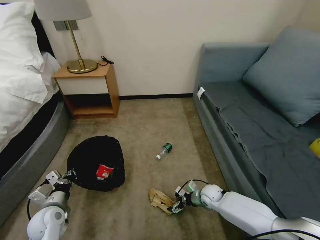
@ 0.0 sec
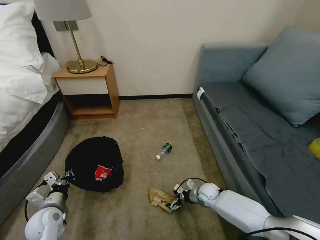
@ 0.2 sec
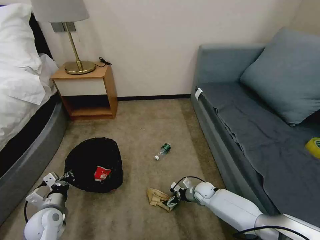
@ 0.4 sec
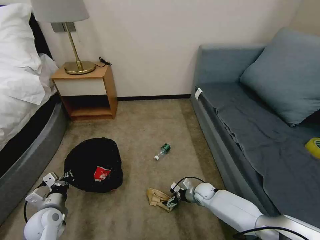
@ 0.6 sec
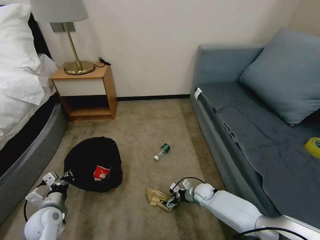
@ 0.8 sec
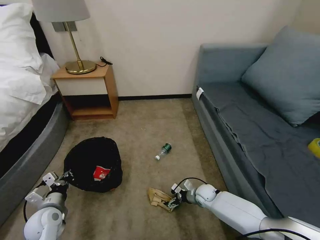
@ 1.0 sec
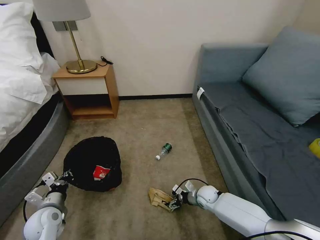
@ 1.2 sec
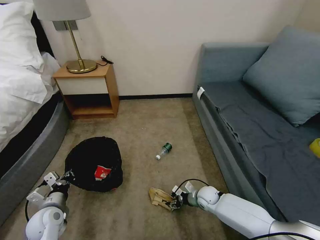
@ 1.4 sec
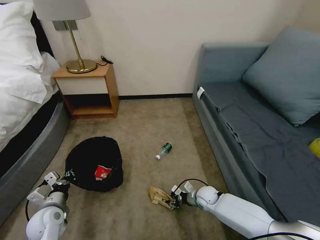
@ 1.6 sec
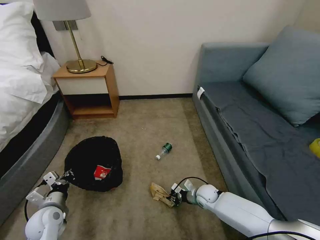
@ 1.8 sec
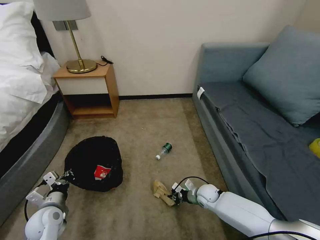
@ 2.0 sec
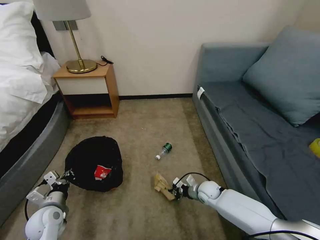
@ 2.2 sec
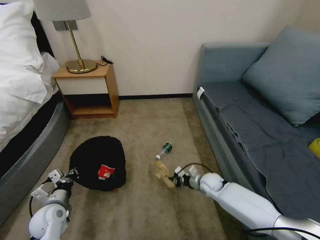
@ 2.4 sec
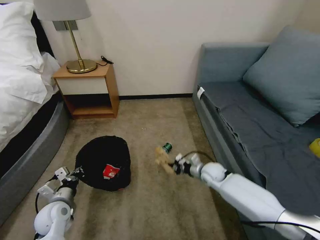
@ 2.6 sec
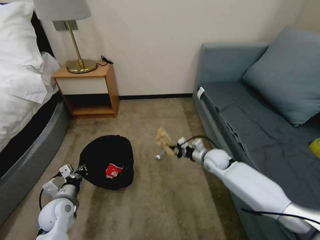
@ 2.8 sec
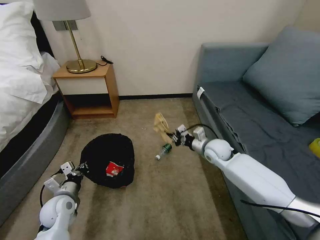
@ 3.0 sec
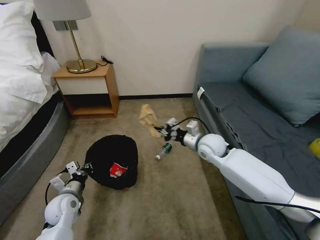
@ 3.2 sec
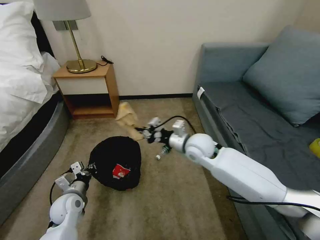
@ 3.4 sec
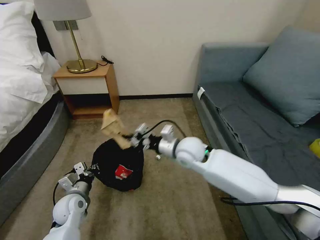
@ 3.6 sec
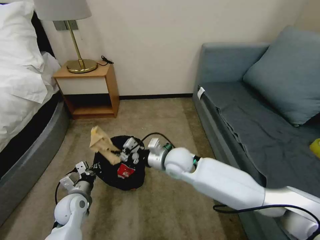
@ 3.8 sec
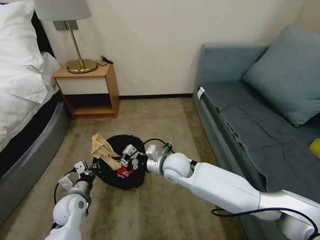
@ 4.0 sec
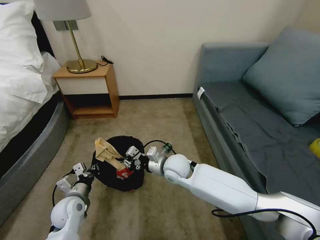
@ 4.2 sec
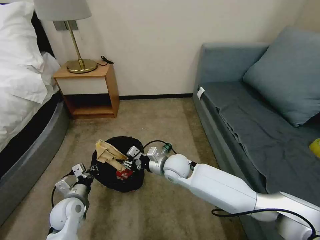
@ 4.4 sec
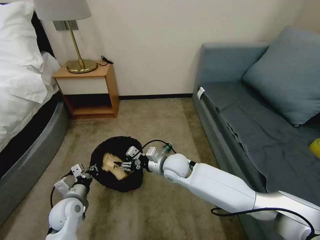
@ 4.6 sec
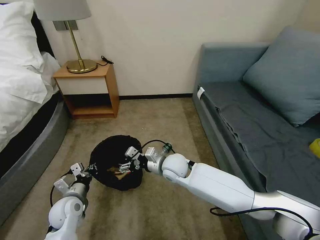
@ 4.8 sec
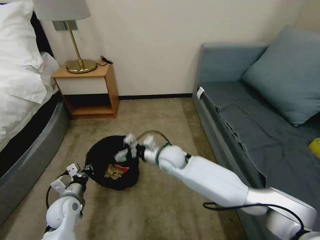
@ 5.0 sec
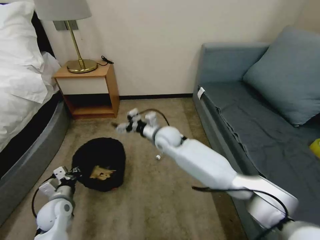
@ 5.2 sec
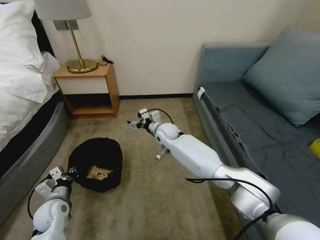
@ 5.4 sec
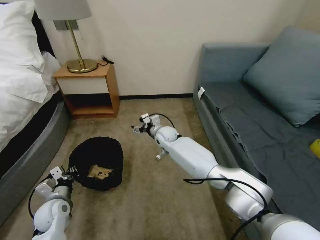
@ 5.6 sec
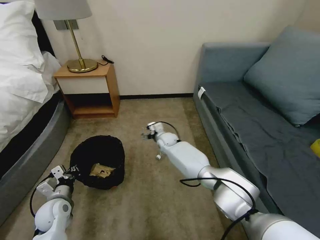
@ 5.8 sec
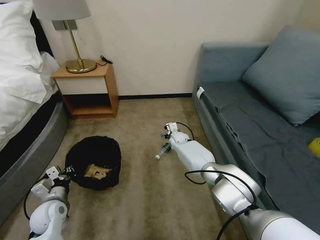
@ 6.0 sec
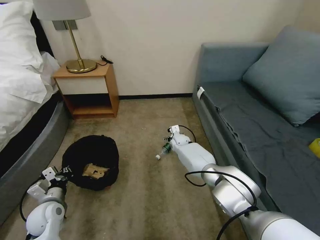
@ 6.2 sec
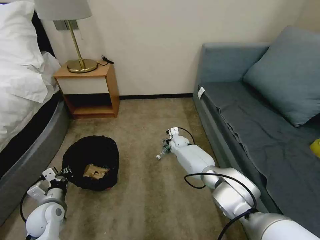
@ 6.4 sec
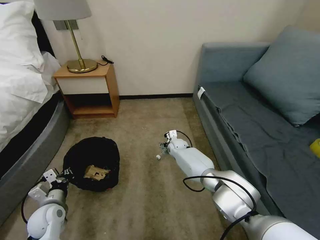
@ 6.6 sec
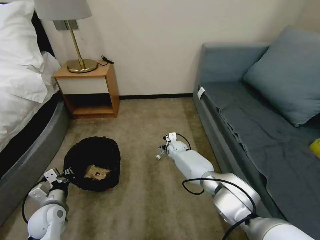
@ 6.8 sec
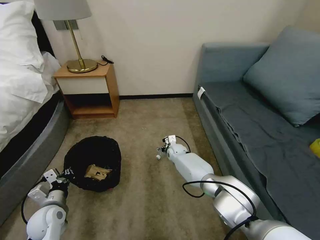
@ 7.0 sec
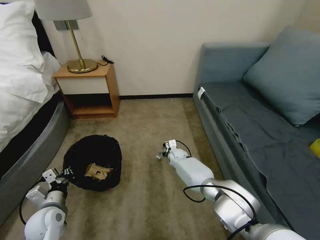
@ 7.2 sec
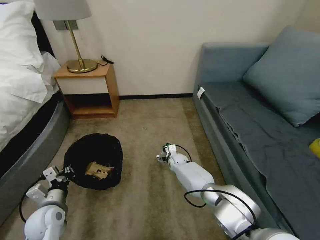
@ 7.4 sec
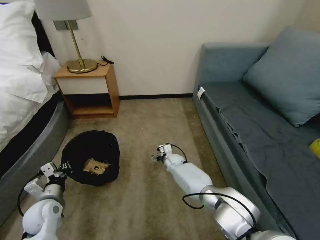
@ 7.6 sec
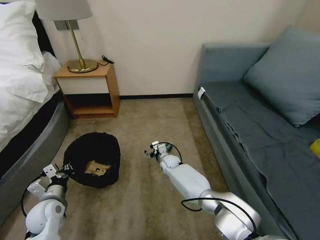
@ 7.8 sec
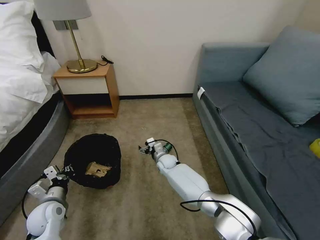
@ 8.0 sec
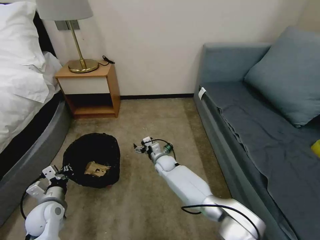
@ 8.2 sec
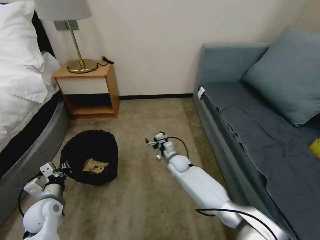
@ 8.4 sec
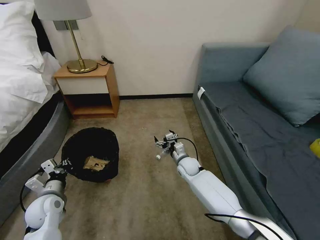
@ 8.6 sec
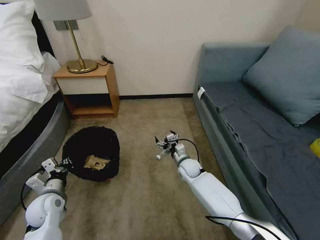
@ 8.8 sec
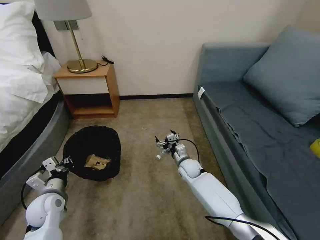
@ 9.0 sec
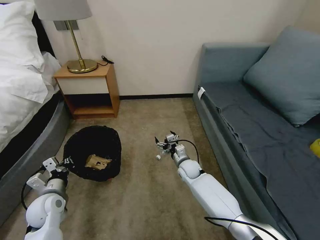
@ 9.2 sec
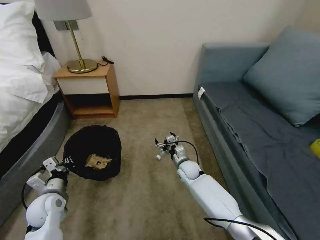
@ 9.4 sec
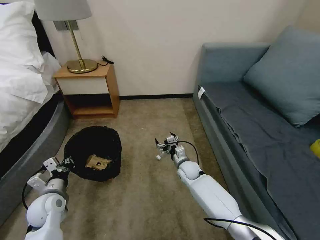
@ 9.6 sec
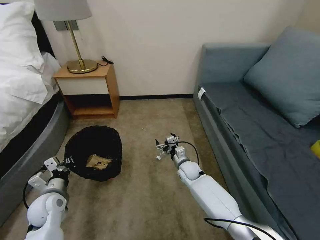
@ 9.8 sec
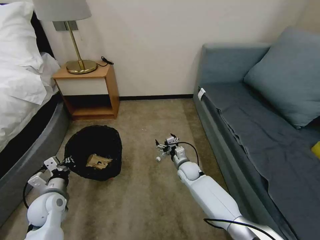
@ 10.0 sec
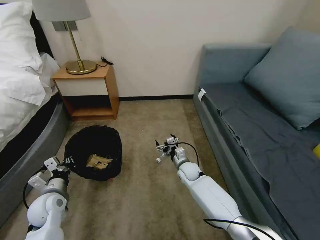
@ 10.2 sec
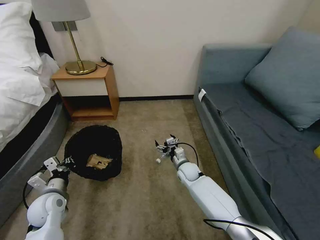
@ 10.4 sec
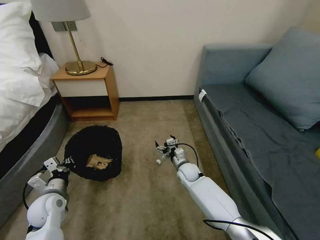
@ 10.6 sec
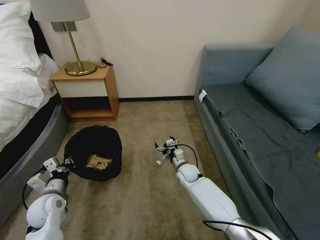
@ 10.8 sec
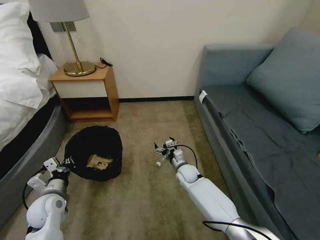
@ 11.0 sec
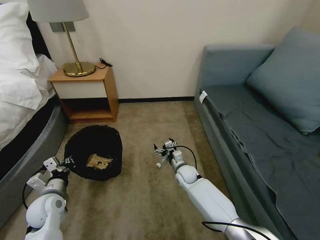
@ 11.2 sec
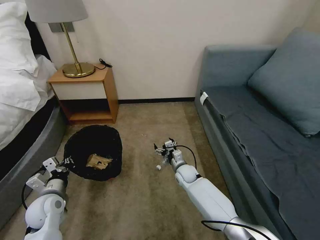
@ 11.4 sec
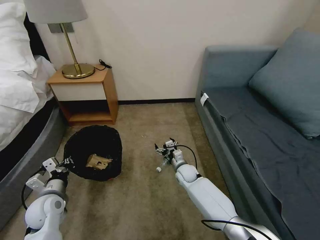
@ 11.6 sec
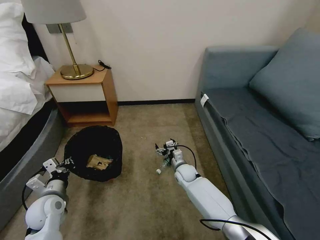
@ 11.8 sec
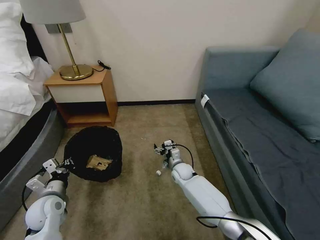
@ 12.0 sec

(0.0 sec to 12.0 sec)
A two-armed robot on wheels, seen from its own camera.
Task of the whole recording: Pick up the trash bin, then pick up the garbage on the floor and place it into the trash bin.
0.0 sec - 1.6 sec: The right gripper closes.
1.6 sec - 3.0 sec: The right gripper moves upward and forward, some 25 cm, and closes up.
3.0 sec - 4.4 sec: The right gripper shifts about 20 cm to the left and backward.
4.4 sec - 6.0 sec: The left gripper travels to the left by about 5 cm. Meanwhile the right gripper moves forward and downward, about 20 cm, and opens.
6.0 sec - 7.6 sec: The right gripper moves backward and downward, approximately 10 cm.
7.6 sec - 9.0 sec: The right gripper goes roughly 10 cm to the right and backward.
9.0 sec - 12.0 sec: The grippers move only a little.

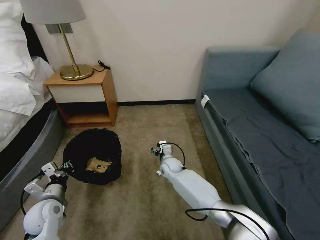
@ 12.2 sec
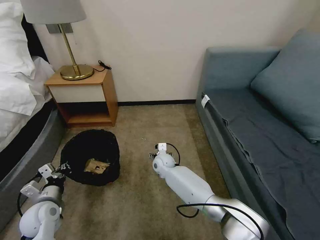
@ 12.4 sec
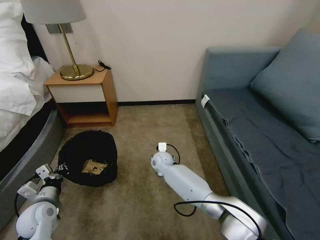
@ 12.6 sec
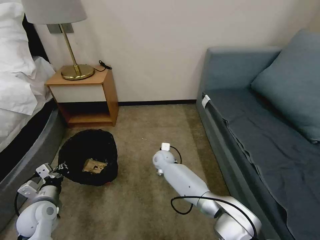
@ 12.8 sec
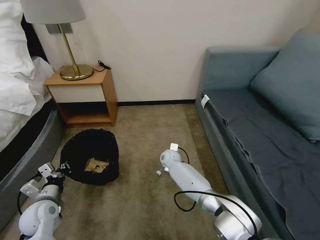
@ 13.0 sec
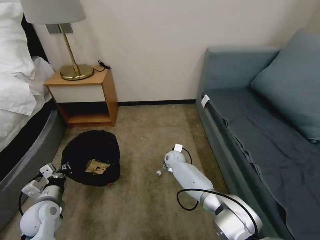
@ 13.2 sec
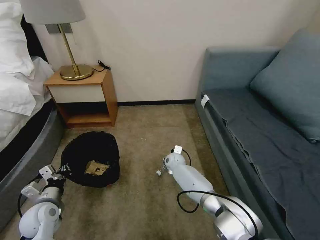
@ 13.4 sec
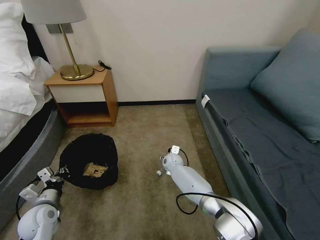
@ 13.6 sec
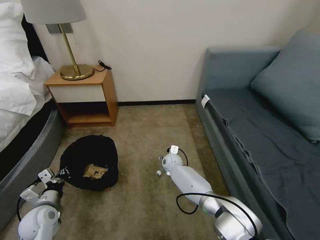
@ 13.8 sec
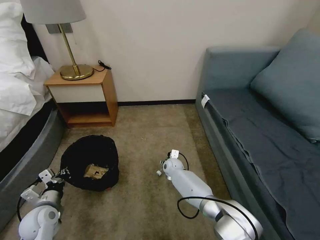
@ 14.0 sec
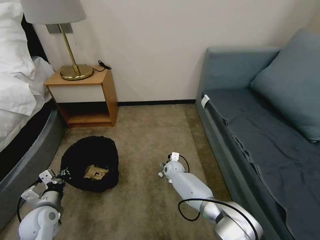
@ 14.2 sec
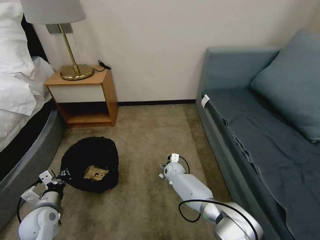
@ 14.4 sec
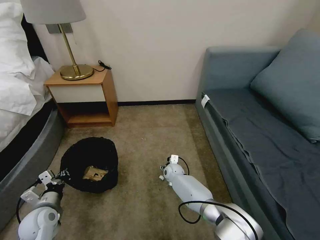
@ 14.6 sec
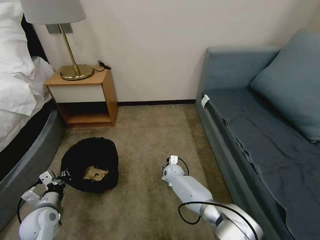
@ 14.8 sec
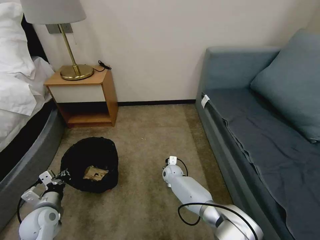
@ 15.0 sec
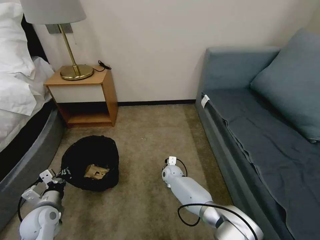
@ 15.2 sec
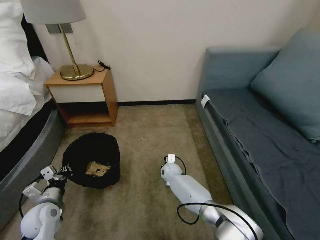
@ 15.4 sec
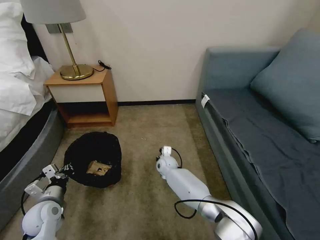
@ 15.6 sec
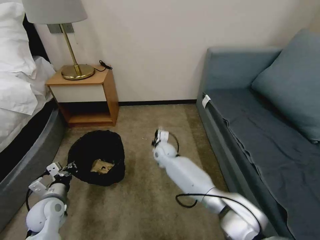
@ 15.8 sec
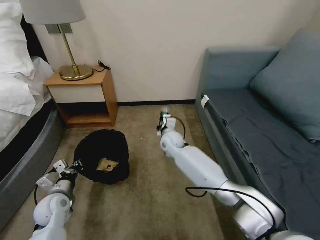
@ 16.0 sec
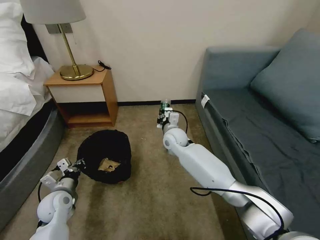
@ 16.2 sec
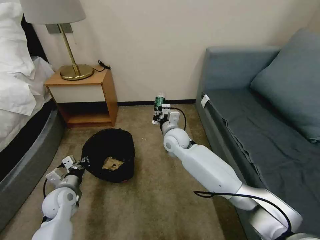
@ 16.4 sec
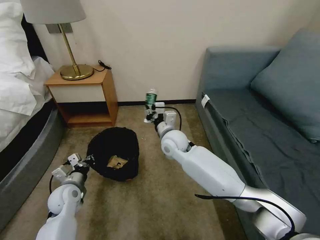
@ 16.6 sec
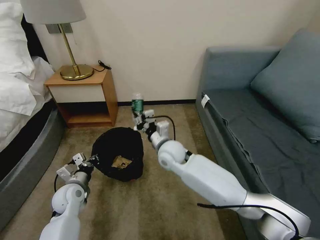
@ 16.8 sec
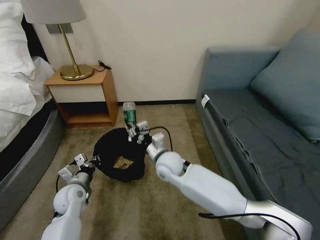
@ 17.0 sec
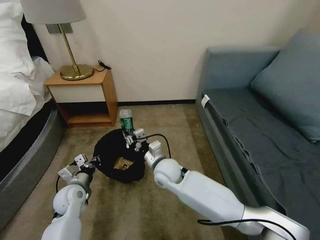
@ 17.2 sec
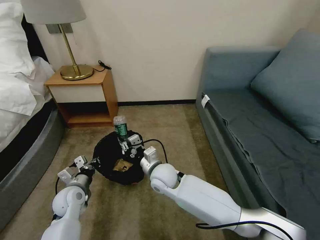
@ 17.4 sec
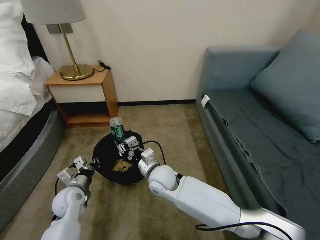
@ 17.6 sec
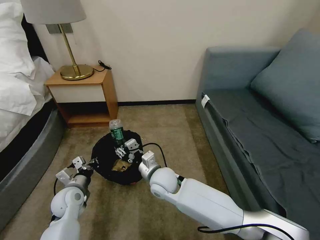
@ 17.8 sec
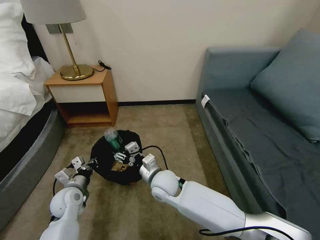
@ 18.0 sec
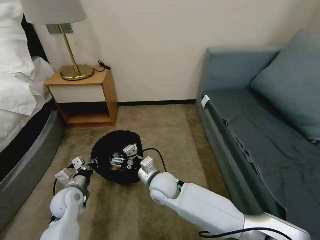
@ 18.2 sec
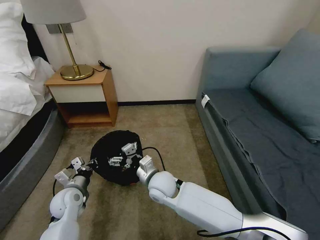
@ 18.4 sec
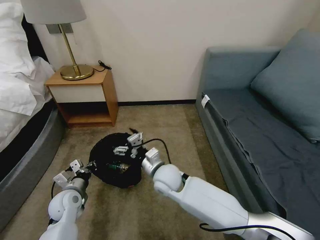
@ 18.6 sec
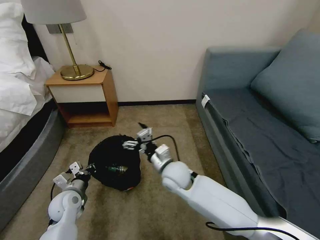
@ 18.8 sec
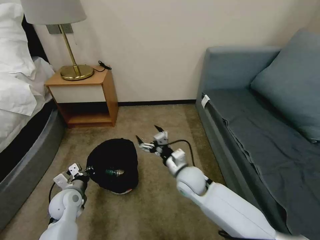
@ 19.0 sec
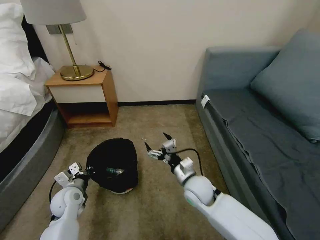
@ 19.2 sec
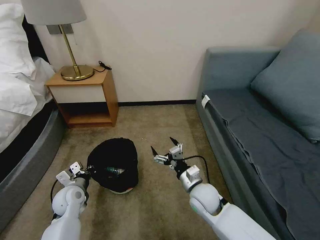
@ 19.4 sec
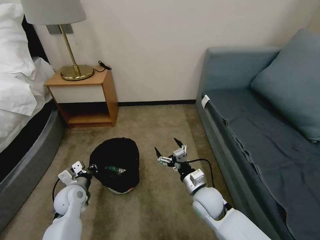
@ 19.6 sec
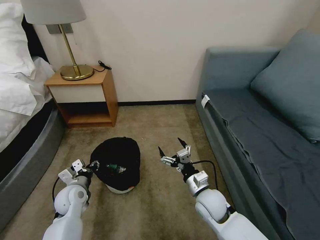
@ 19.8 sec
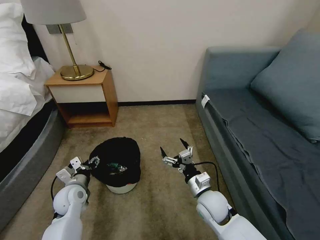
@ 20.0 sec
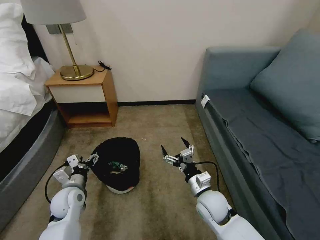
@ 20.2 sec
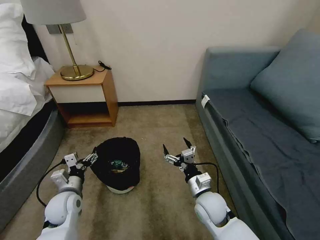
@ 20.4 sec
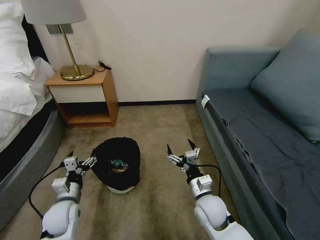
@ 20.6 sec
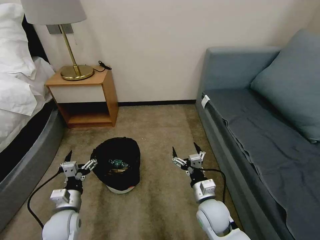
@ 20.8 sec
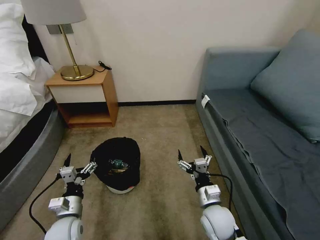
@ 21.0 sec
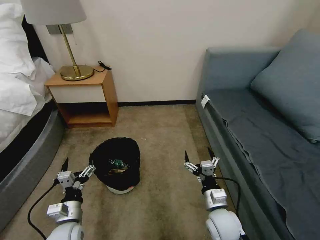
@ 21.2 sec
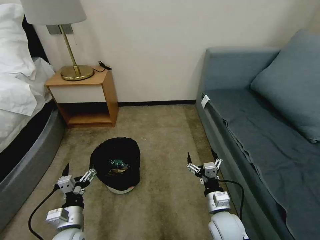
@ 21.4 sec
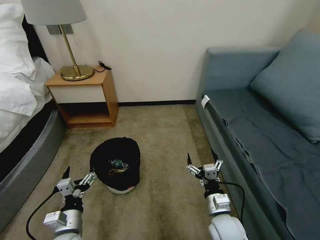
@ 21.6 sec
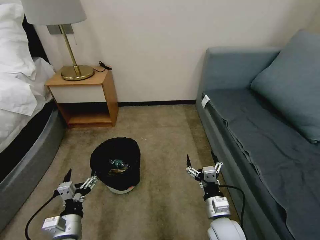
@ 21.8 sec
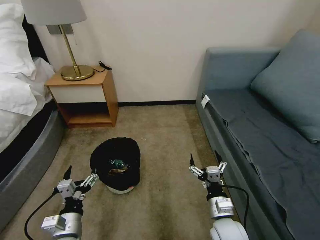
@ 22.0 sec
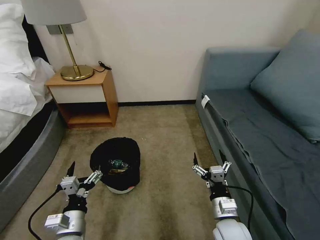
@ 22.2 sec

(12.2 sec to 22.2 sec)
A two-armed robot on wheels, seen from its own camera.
Task of the whole recording: Pick up the trash bin, then pick up the garbage on the floor and place it into the trash bin.
13.6 sec - 15.0 sec: The right gripper moves about 5 cm, and closes its fingers.
15.0 sec - 16.4 sec: The right gripper heads upward, covering about 25 cm. The left gripper travels forward by about 5 cm.
16.4 sec - 18.0 sec: The right gripper goes about 15 cm backward and downward, and opens its fingers.
18.0 sec - 19.4 sec: The right gripper goes approximately 15 cm to the right.
19.4 sec - 20.8 sec: The left gripper heads backward, covering about 10 cm, and opens its fingers; the right gripper changes place by roughly 5 cm.
20.8 sec - 22.2 sec: The left gripper goes roughly 10 cm backward and to the right. Meanwhile the right gripper travels backward by roughly 5 cm.
